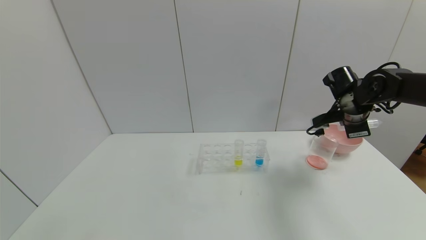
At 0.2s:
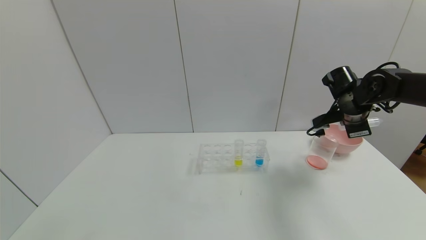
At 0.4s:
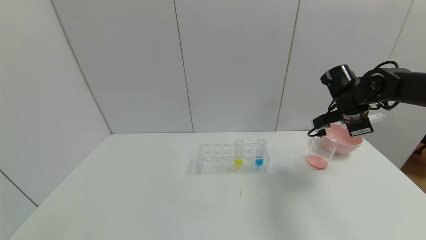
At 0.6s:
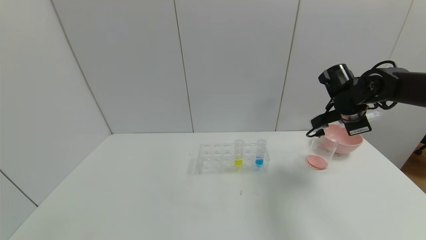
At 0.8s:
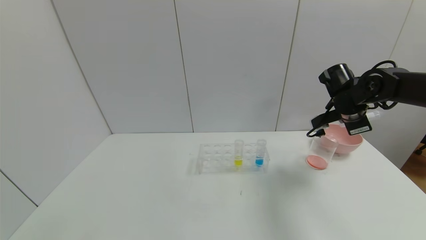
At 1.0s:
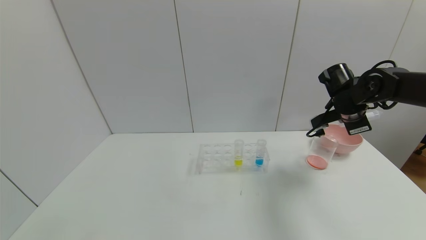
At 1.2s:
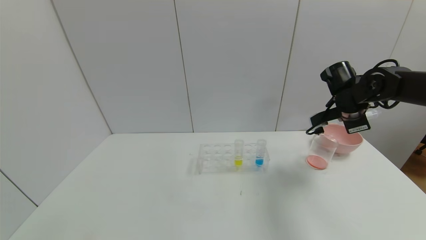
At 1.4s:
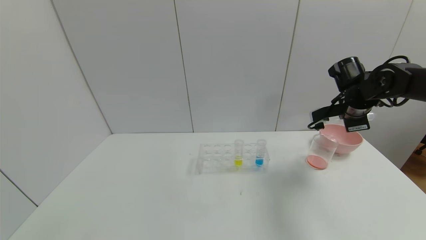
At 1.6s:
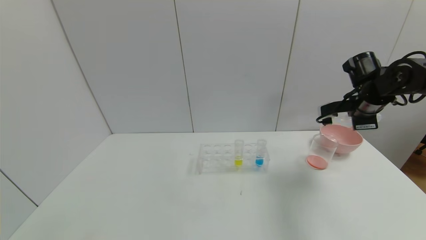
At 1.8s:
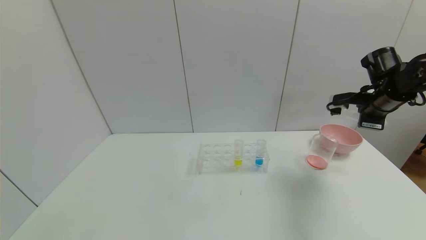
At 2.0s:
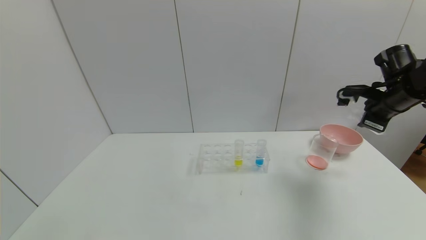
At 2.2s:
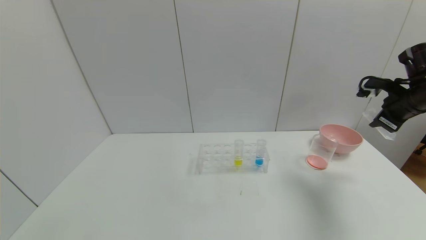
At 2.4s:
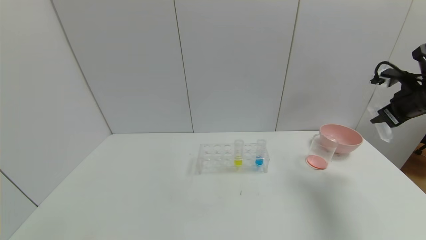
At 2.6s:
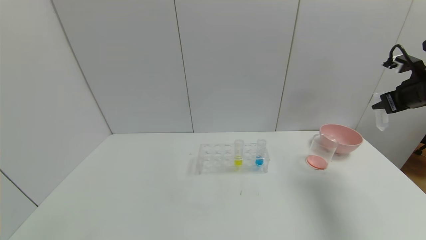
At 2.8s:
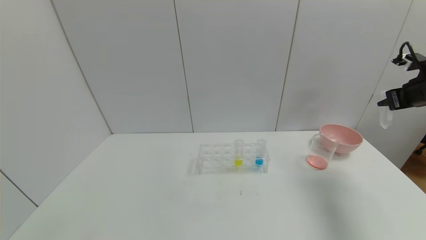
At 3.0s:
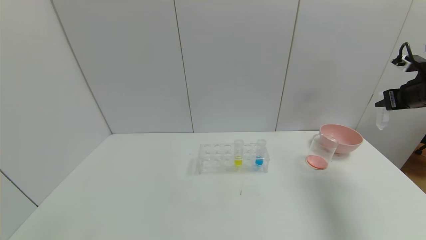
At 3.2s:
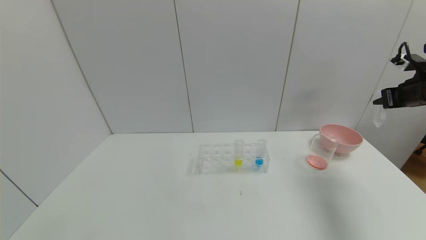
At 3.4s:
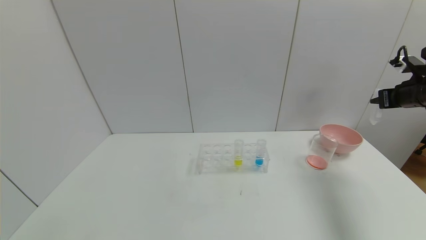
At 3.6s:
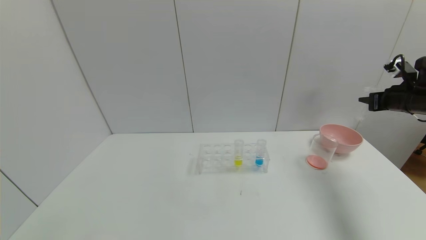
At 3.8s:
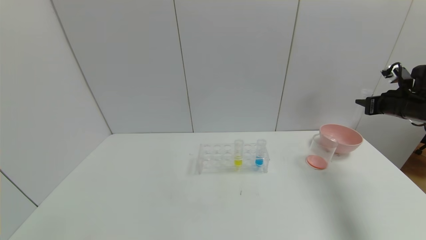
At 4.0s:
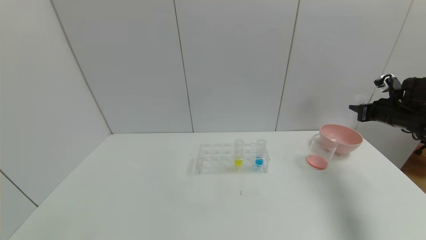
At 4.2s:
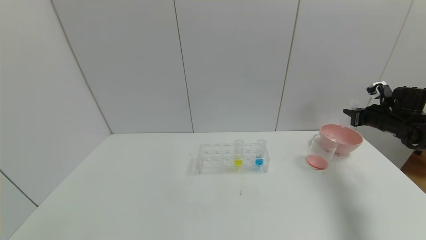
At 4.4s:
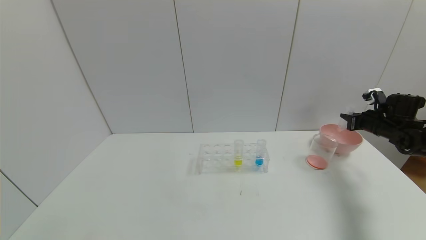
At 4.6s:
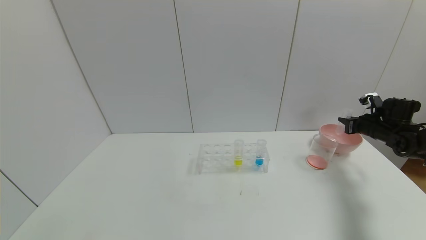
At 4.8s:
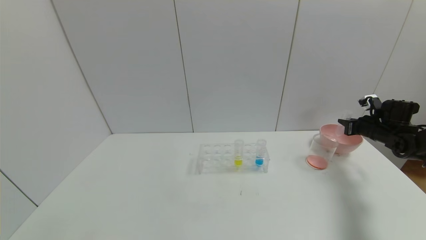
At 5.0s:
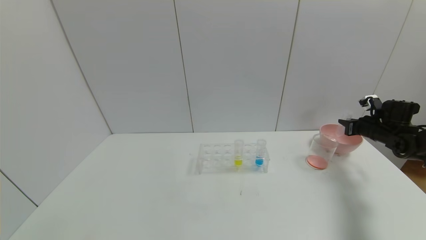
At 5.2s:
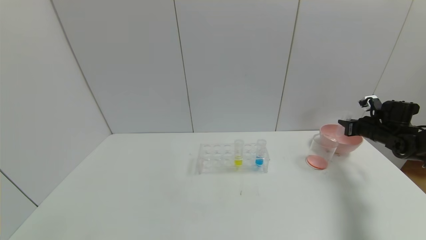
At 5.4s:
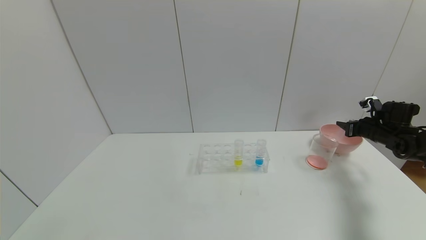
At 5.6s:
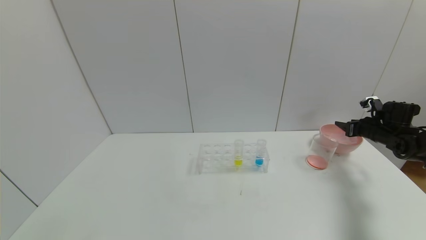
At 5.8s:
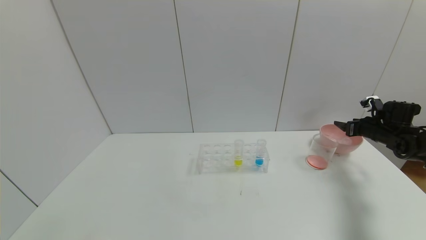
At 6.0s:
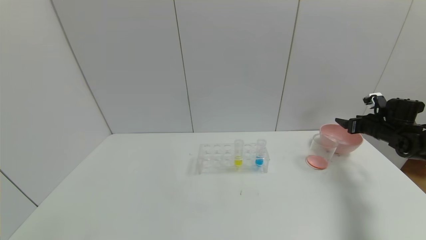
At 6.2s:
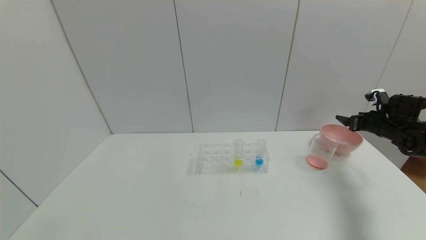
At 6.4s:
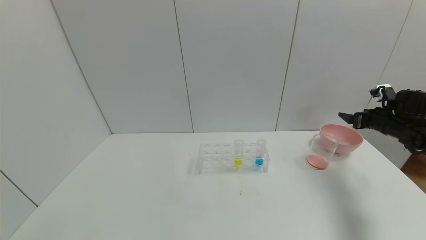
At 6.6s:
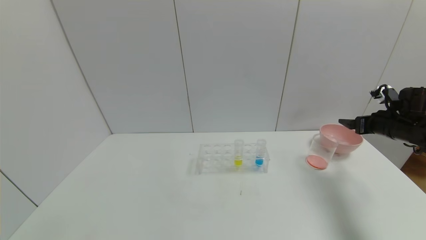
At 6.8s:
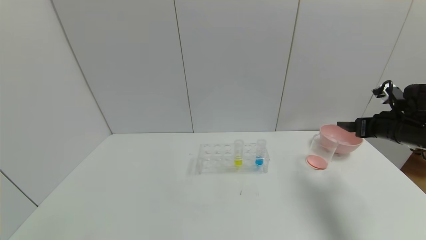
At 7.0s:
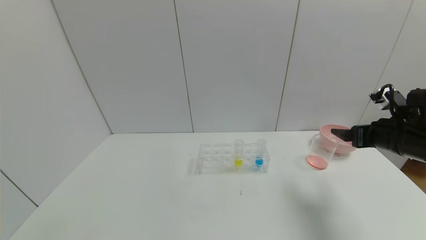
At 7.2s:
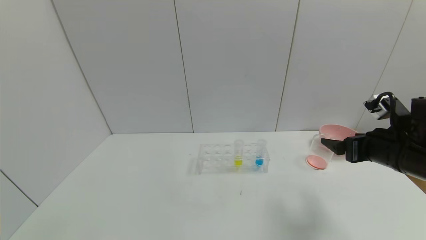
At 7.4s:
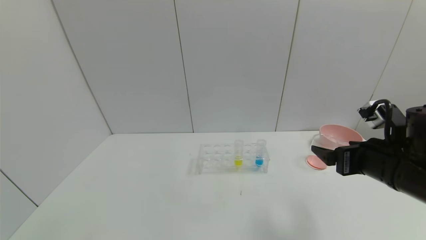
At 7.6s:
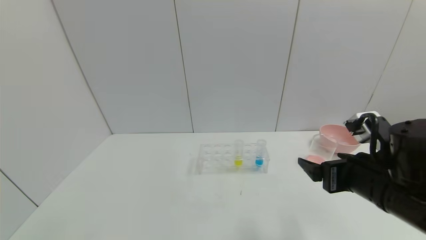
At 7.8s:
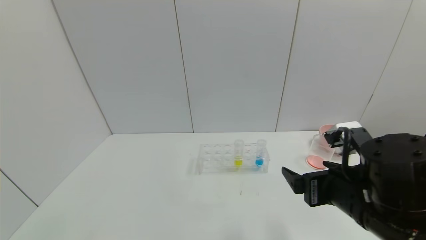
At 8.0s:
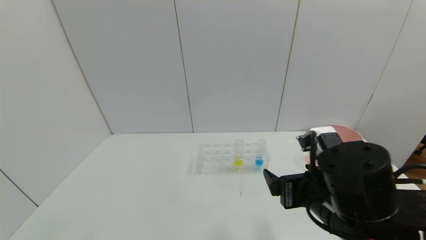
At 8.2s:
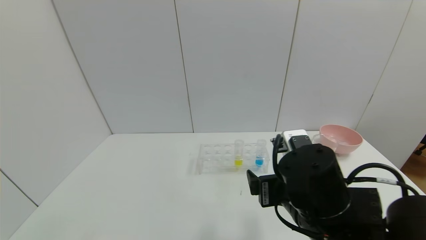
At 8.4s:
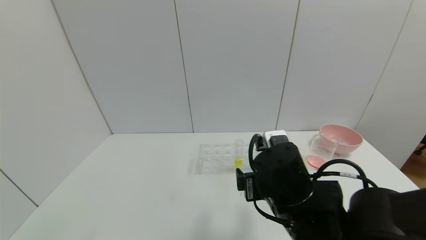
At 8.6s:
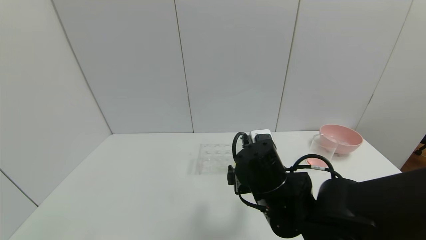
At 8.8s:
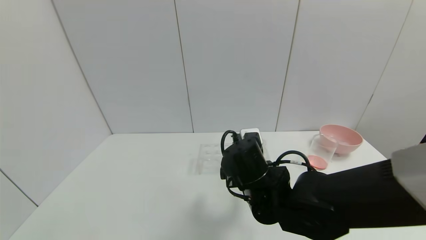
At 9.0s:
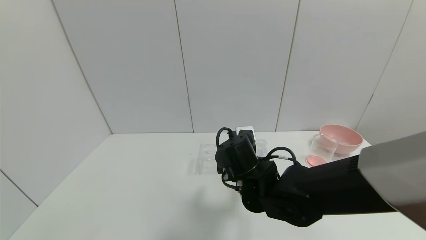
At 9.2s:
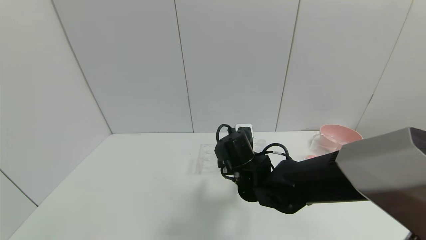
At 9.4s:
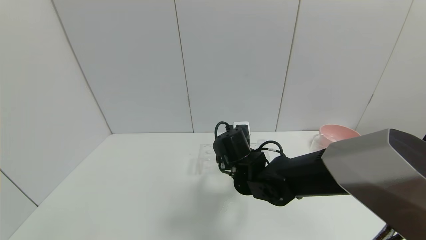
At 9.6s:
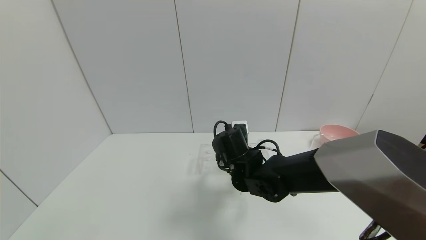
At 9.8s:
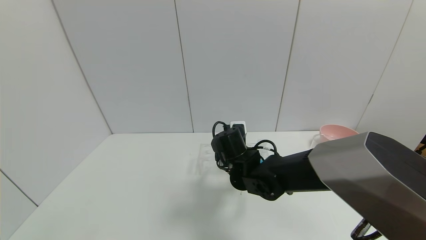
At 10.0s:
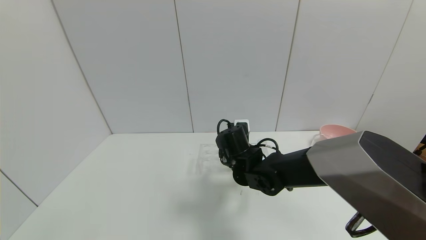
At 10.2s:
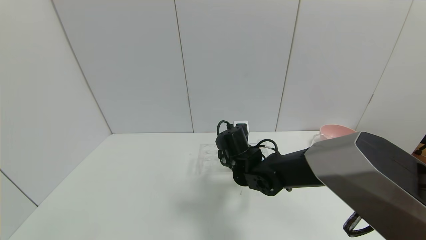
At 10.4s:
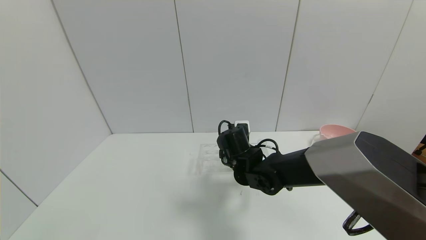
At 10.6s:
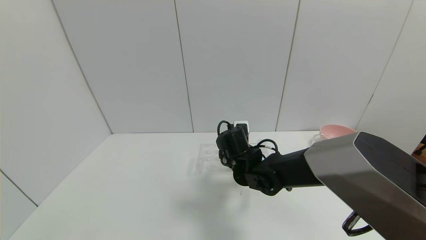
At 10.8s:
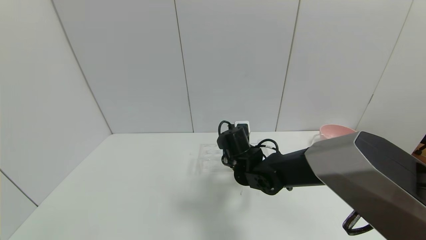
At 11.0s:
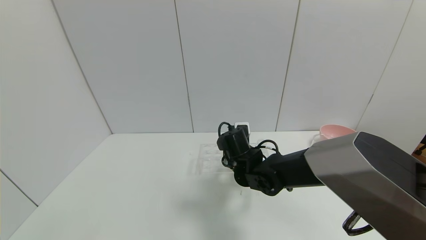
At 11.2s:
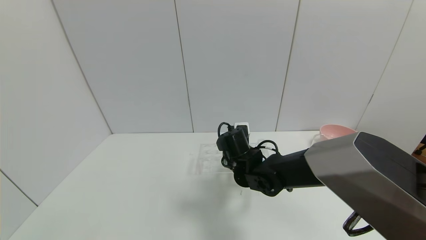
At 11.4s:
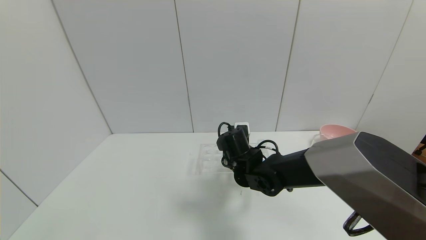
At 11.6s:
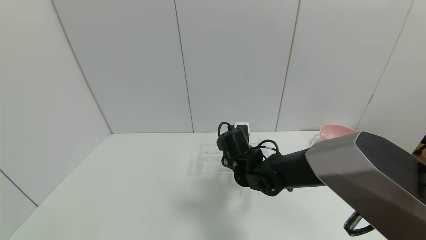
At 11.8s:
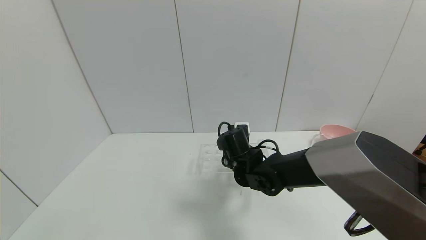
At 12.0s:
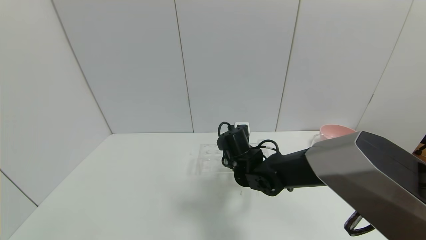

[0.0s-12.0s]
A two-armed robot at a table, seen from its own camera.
Task of the whole recording: pick up the test tube with yellow pigment and the test tube with red pigment by grippers and pour them into the beaker.
Step, 0.0s to 3.6s: Pour the red reagent into the graduated cylinder with right gripper.
Step, 3.8s to 7.6s: Place the test tube into the bowl with right gripper.
0.0s to 1.6s: There are only small adjustments of the grippers.
1.6s to 3.0s: The right gripper moves to the right, about 10 cm.
3.0s to 4.4s: The right gripper heads downward and forward, covering roughly 15 cm.
4.4s to 6.0s: The right gripper opens.
6.0s to 7.6s: The right gripper shifts approximately 35 cm backward and to the left.
7.6s to 9.0s: The right gripper moves to the left, forward and downward, approximately 20 cm.
9.0s to 10.4s: The right gripper is displaced forward by some 5 cm.
10.4s to 12.0s: The right gripper closes.

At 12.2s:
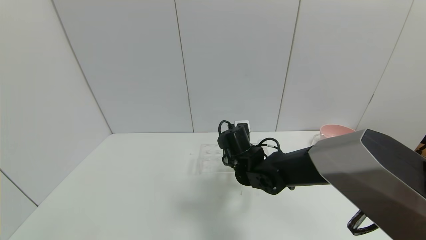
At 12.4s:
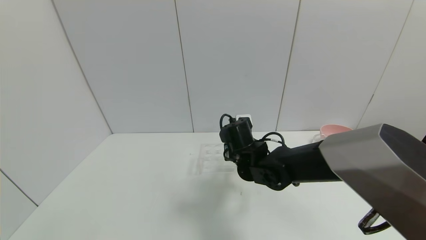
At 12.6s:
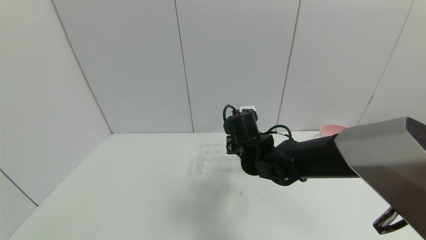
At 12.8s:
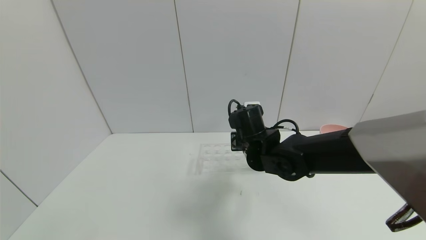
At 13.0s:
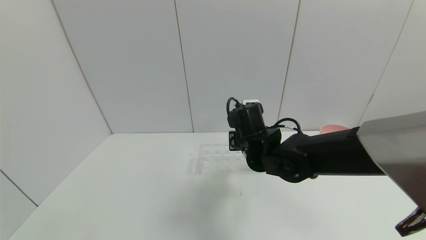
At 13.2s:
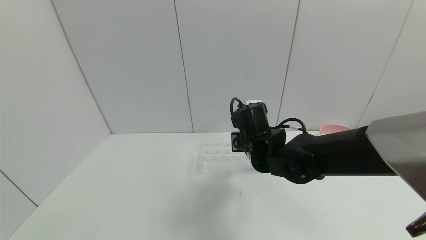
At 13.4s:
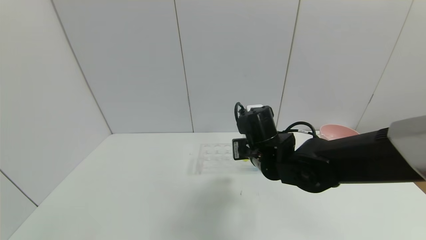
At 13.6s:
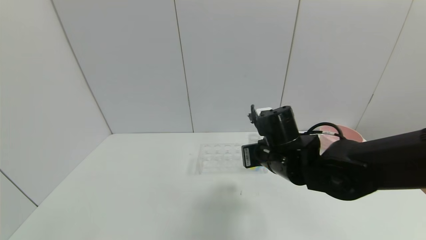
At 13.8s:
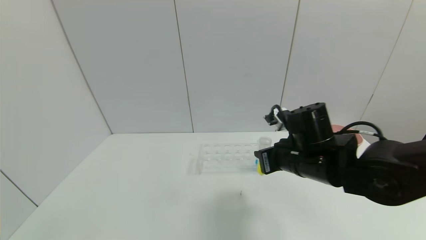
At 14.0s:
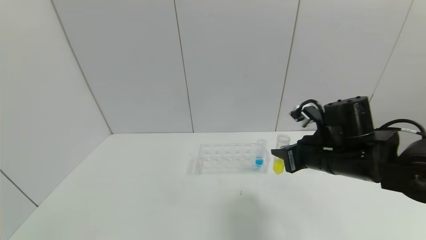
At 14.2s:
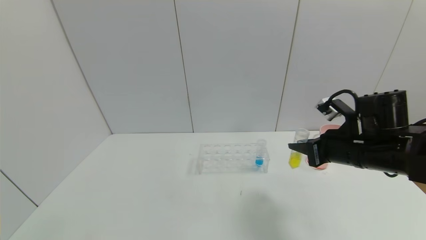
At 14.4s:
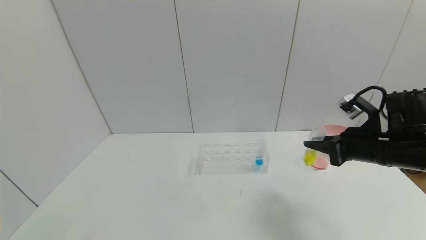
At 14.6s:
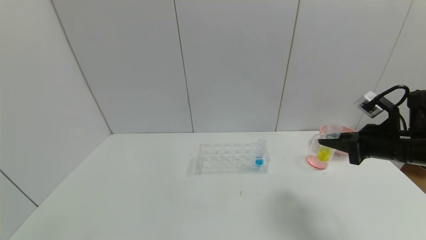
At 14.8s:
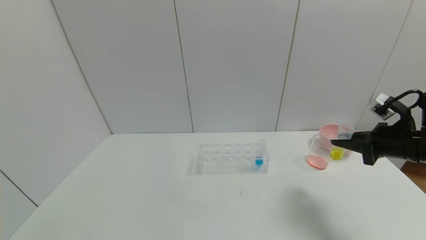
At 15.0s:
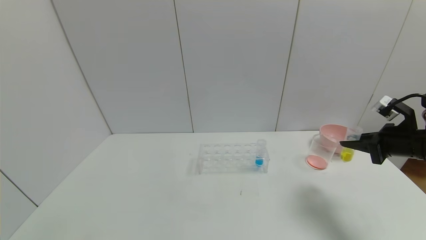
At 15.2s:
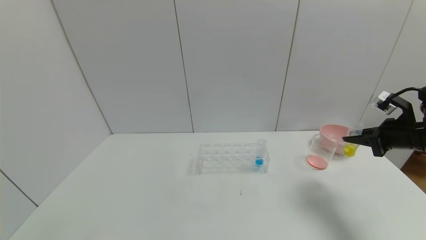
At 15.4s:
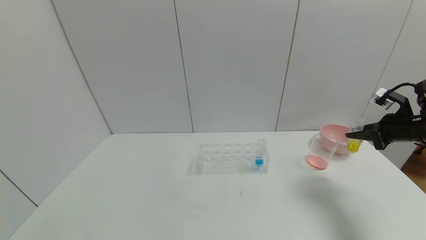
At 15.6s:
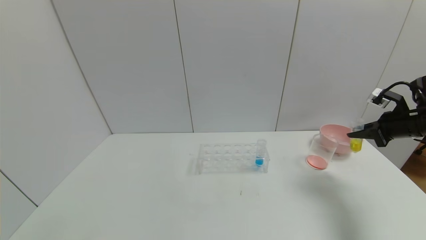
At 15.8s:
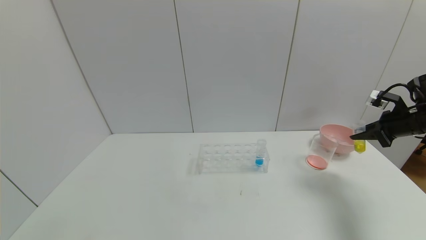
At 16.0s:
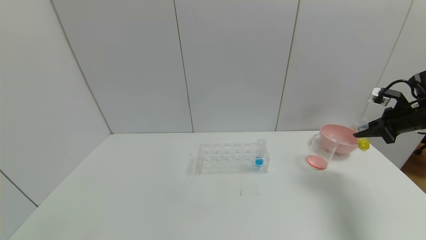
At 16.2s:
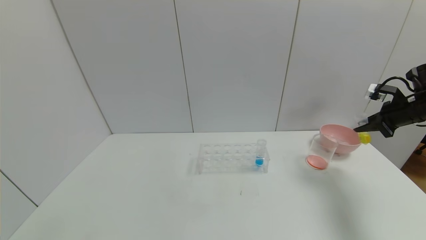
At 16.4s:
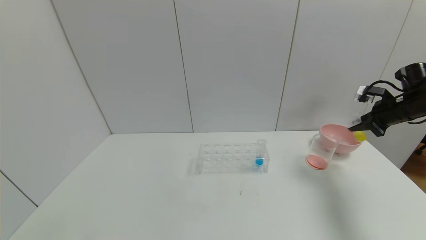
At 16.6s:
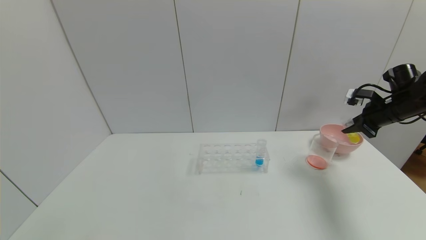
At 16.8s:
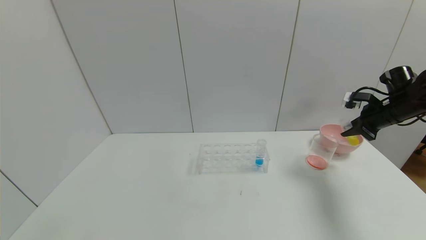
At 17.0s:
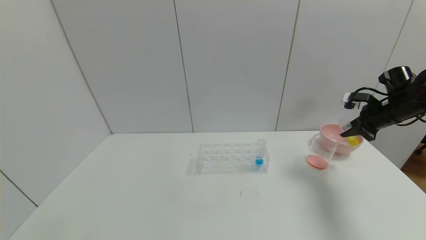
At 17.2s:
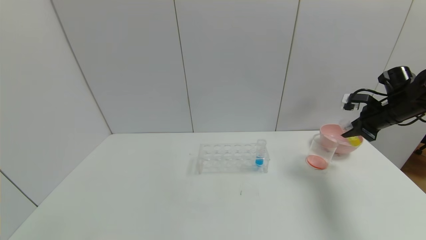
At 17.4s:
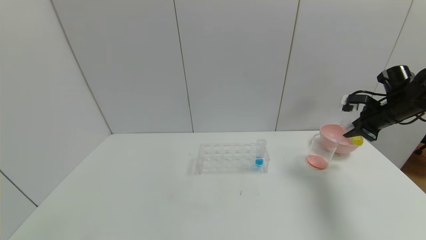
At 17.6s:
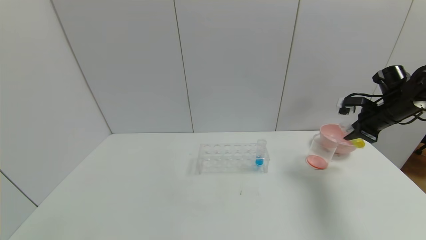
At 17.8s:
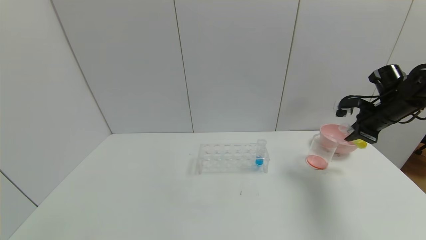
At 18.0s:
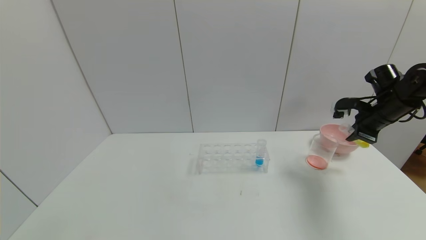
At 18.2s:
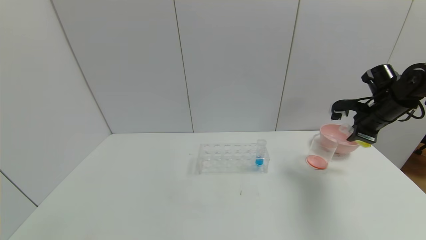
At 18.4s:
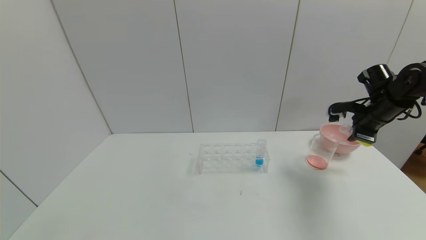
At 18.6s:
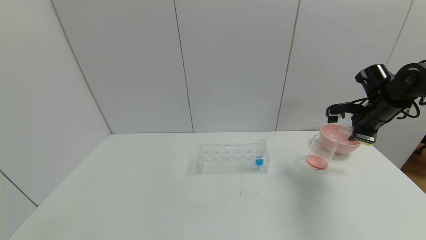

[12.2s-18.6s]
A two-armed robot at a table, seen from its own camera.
Task of the whole recording: pick up the test tube with yellow pigment and the test tube with red pigment by grippers and pour them into the beaker.
Step, 12.2s to 14.2s: Pick up the test tube containing the yellow reagent with right gripper.
12.2s to 13.8s: The right gripper moves to the right, backward and upward, approximately 15 cm.
13.8s to 15.4s: The right gripper travels to the right by roughly 25 cm.
15.4s to 17.0s: The right gripper is displaced forward by roughly 5 cm.
17.0s to 18.6s: The right gripper shifts some 5 cm to the left.
